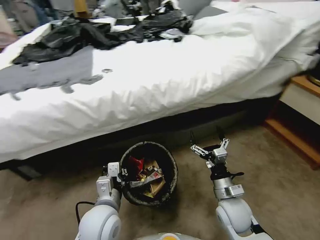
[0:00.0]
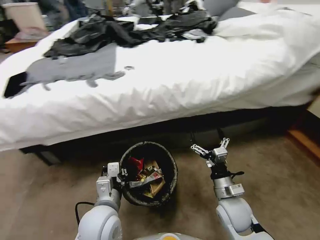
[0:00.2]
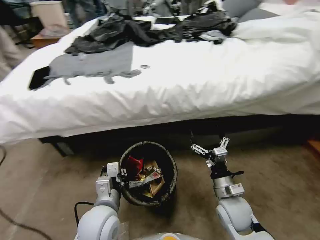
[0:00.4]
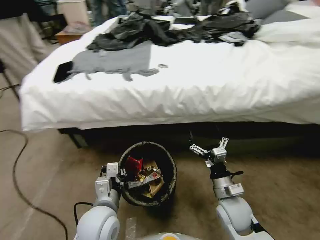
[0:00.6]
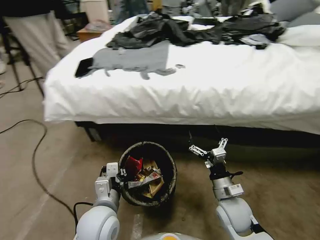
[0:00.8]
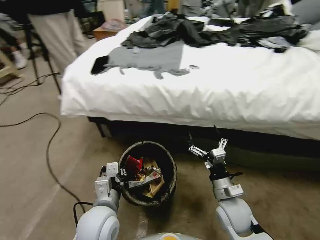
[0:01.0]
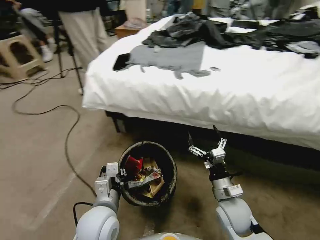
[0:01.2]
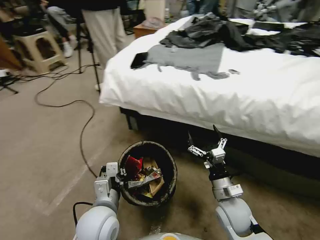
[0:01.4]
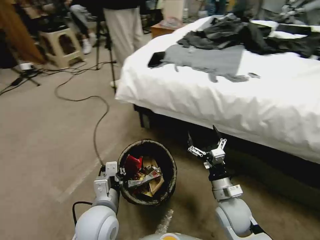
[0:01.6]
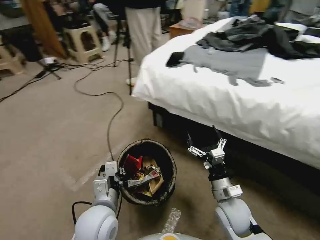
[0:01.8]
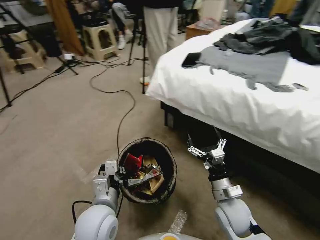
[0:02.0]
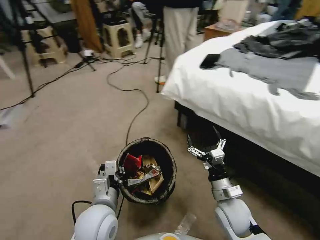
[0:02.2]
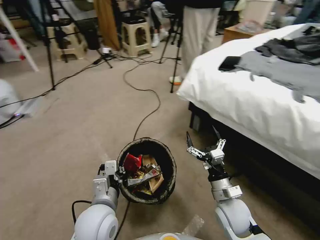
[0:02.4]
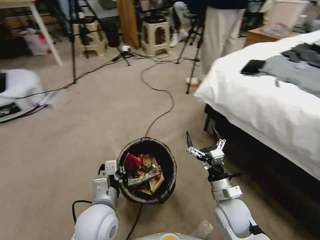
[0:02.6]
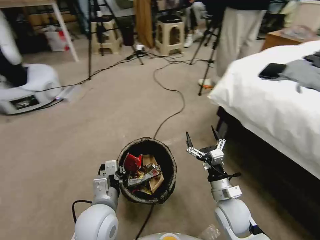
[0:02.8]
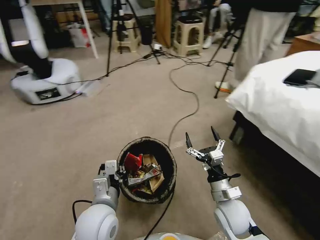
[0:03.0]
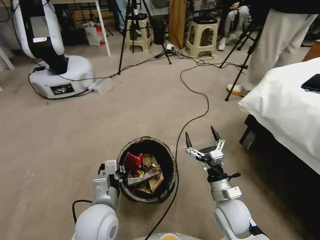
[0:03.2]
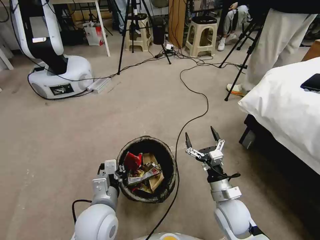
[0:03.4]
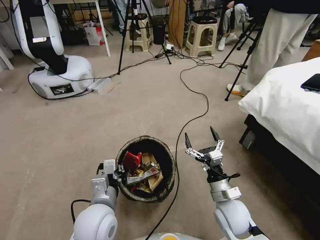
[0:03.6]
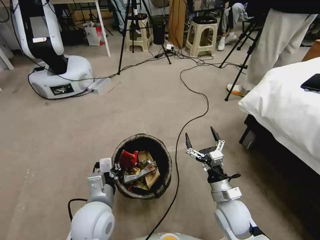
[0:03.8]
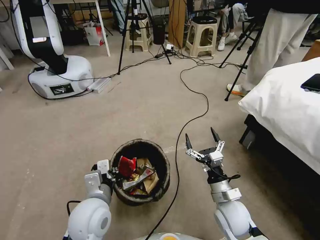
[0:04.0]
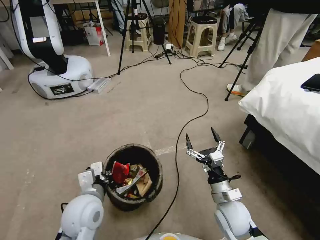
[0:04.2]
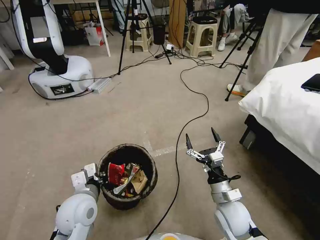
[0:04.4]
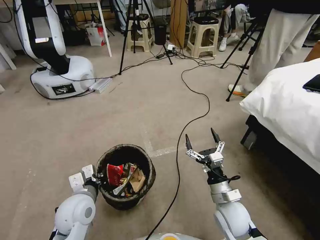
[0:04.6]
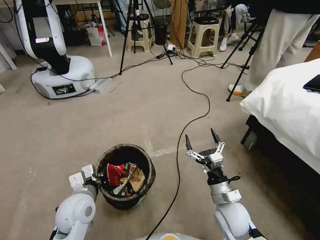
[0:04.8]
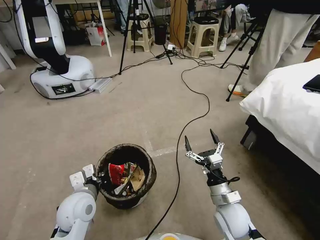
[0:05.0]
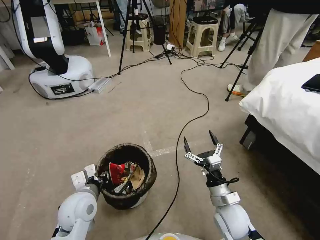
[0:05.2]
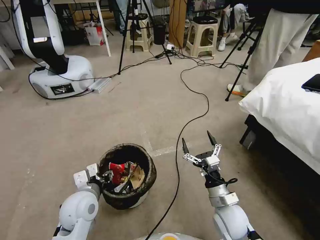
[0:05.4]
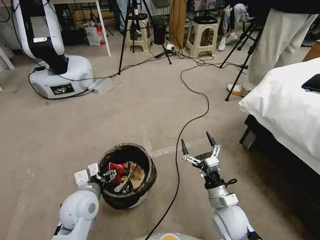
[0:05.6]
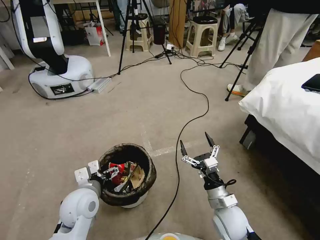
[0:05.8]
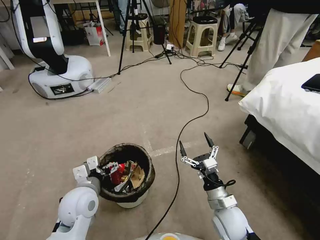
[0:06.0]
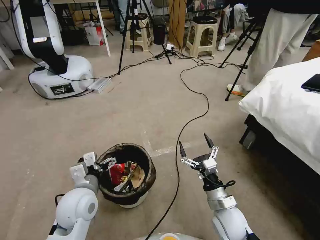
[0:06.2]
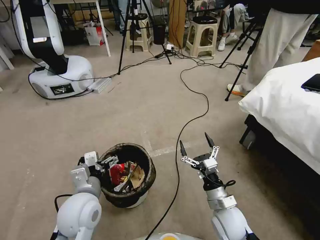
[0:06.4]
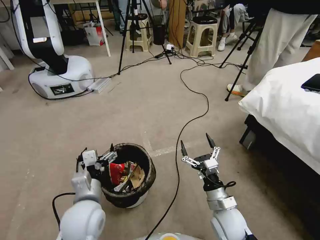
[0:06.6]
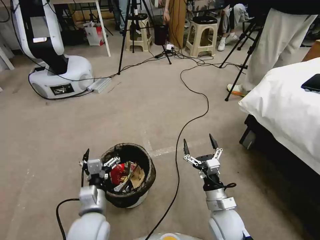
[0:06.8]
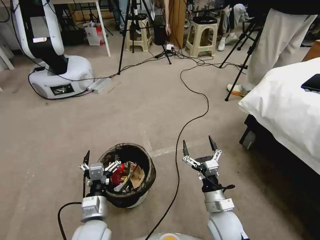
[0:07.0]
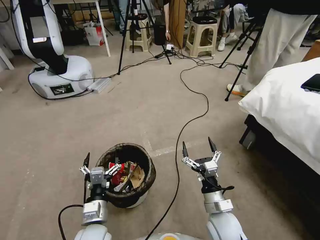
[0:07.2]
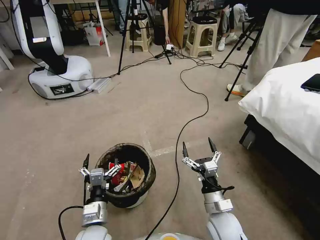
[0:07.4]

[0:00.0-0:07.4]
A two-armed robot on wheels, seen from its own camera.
Task of the whole recording: Pick up the trash bin, then pick up the garbage from the floor and place it into the trash bin.
0:03.0 to 0:04.4: The left gripper goes approximately 5 cm to the left.
0:04.4 to 0:06.0: The left gripper opens up.
0:06.0 to 0:07.4: The left gripper is displaced backward and downward by approximately 10 cm.
